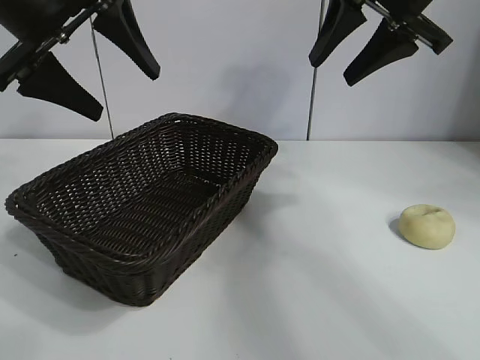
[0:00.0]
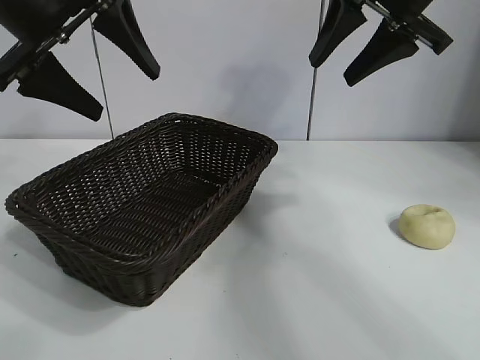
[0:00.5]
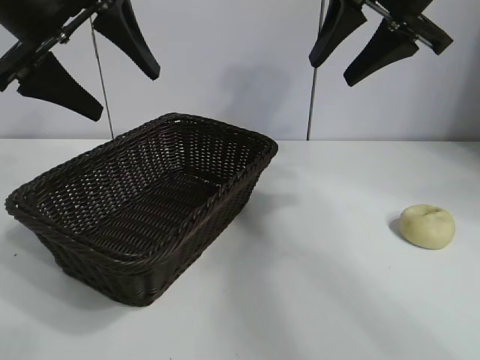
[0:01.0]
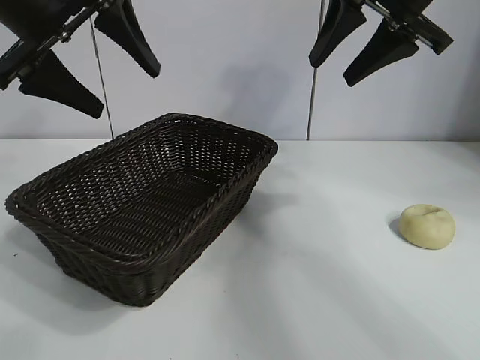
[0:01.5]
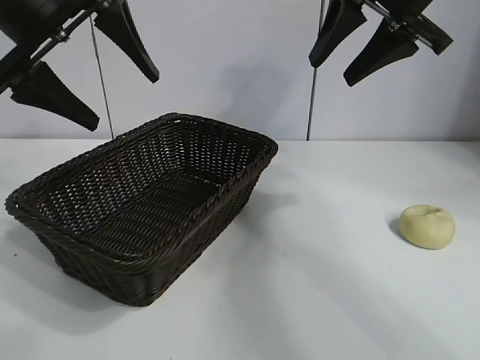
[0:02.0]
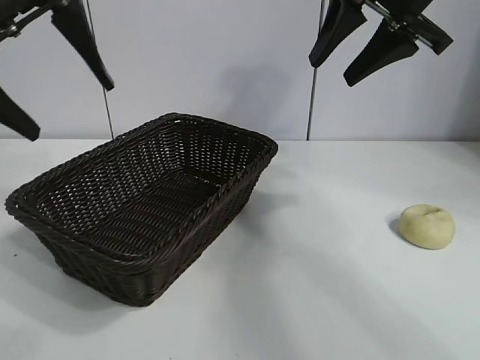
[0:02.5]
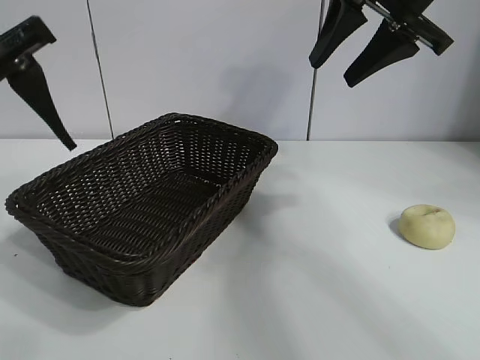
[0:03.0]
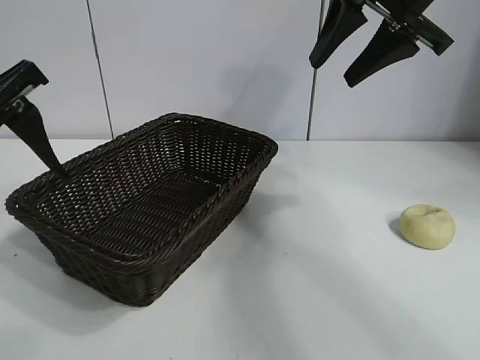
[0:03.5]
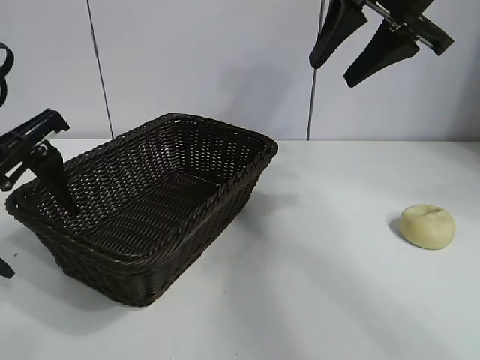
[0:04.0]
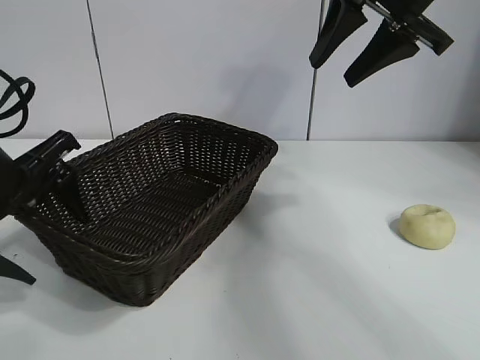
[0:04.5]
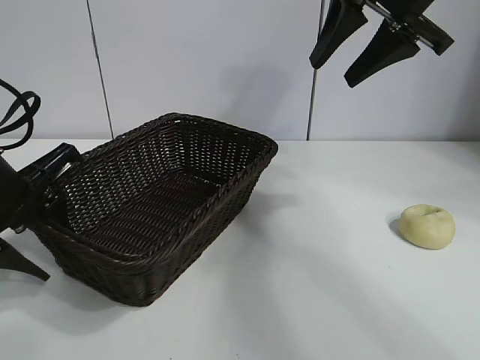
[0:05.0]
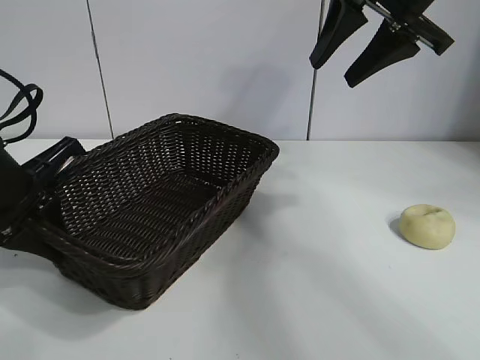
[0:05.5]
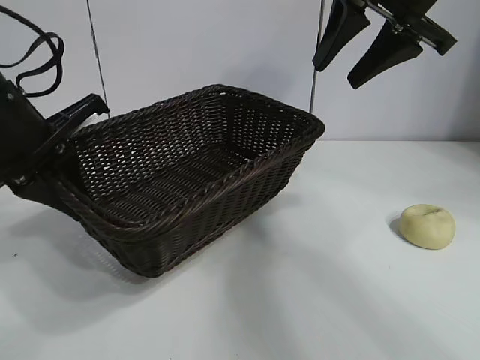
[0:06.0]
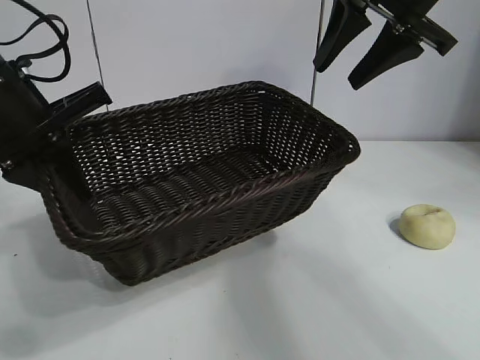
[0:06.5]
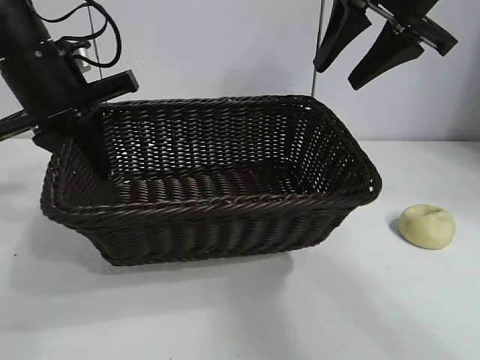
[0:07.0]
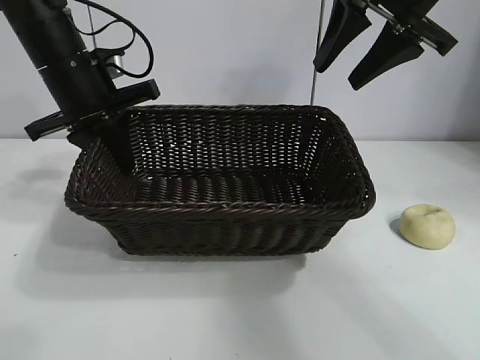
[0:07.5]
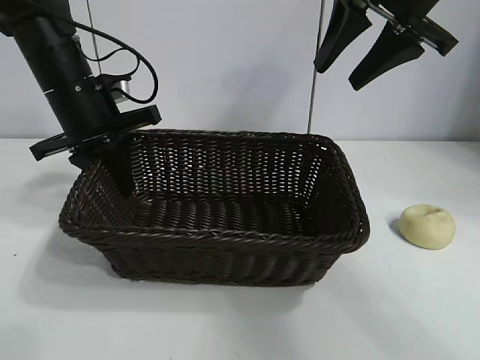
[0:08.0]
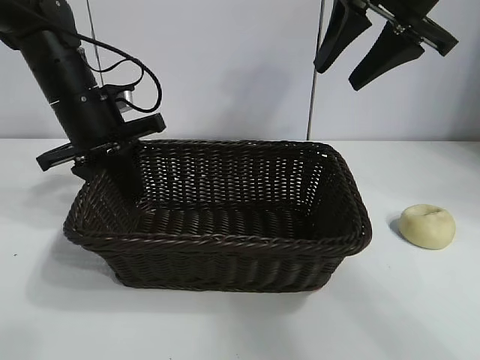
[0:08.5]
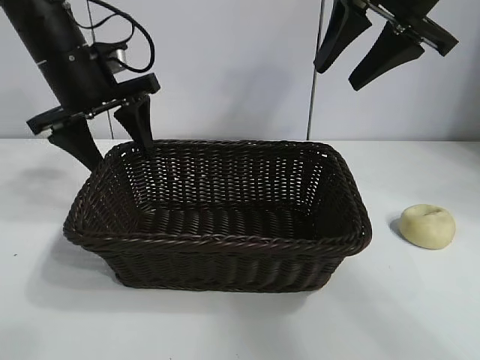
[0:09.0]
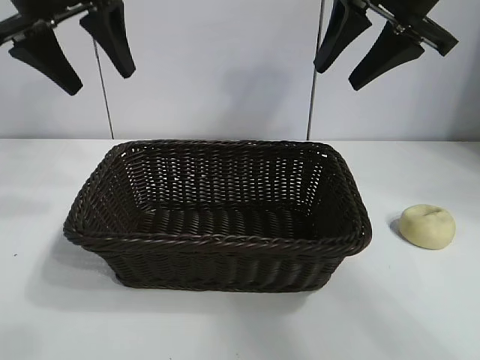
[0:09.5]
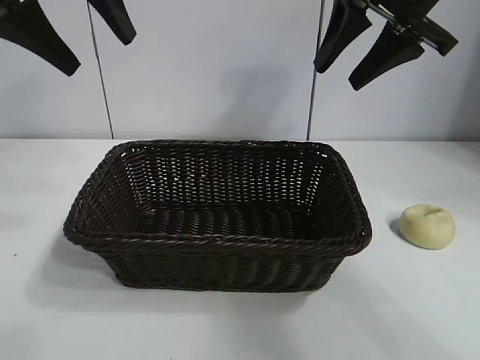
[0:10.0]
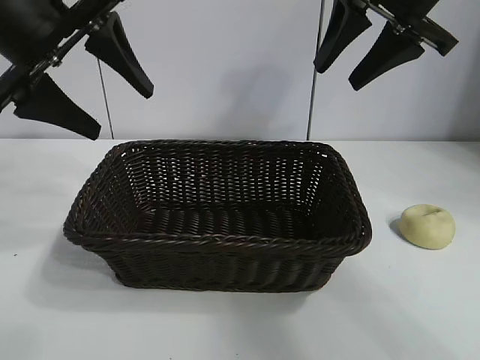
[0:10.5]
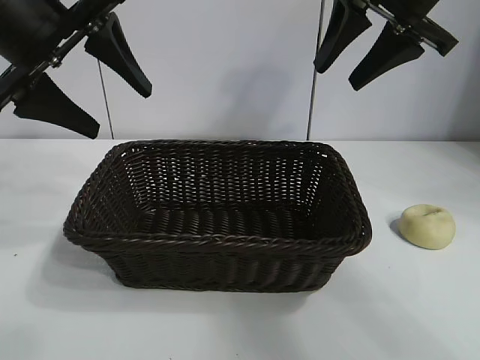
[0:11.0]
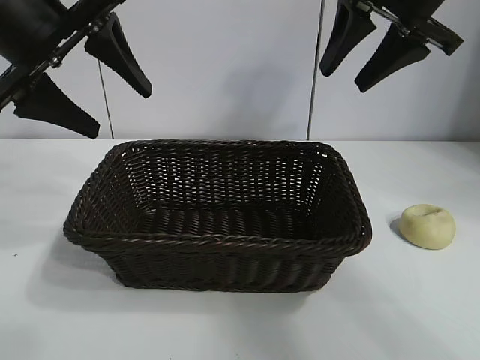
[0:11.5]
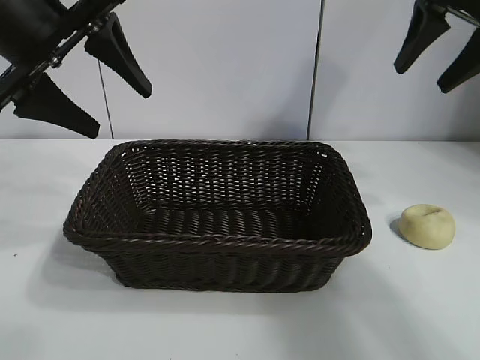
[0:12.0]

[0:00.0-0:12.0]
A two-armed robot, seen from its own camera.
Task of the whole recording: pick up the egg yolk pastry and put it into the basket.
Step, 0:01.5 to 0:05.0: Grasp the basket with left gripper.
Step, 0:05.5 to 0:08.5: Place the basket in the center of view with left gripper.

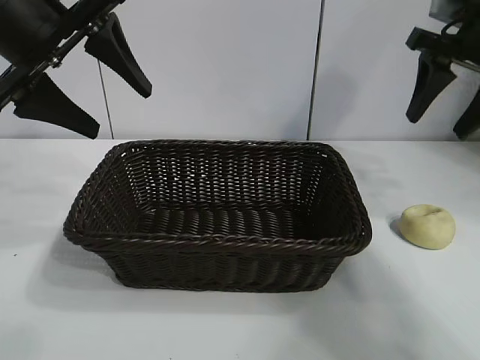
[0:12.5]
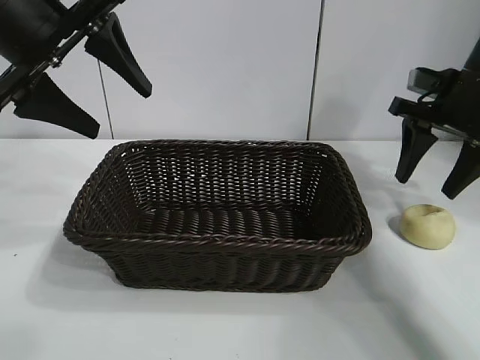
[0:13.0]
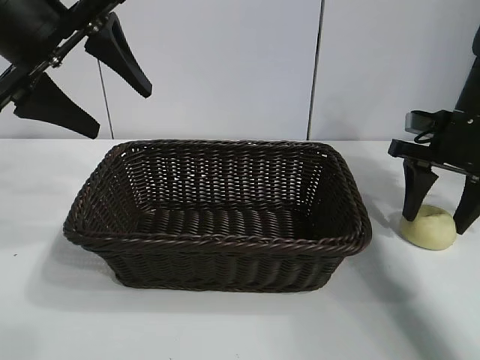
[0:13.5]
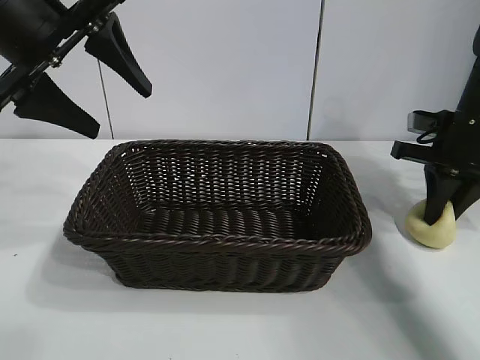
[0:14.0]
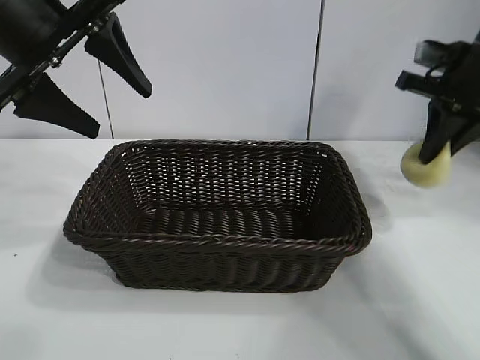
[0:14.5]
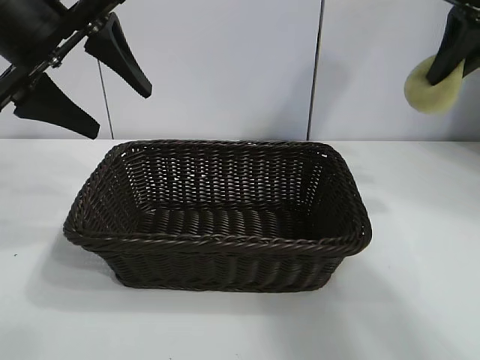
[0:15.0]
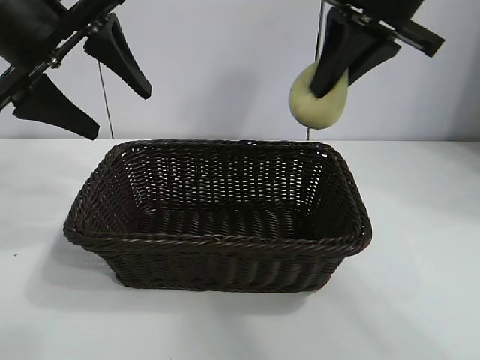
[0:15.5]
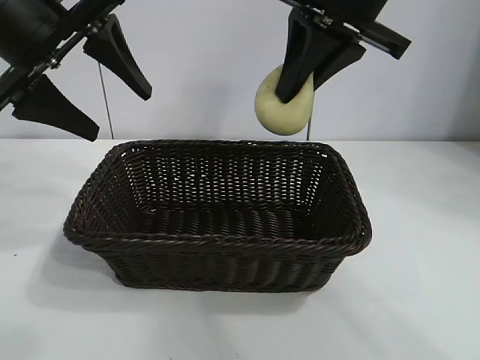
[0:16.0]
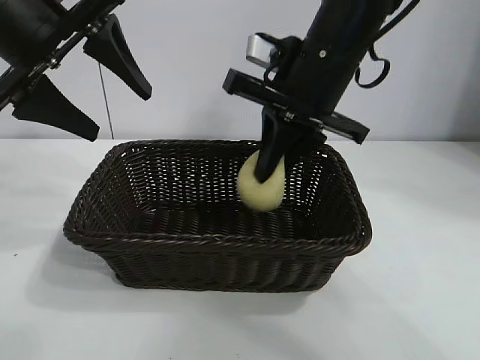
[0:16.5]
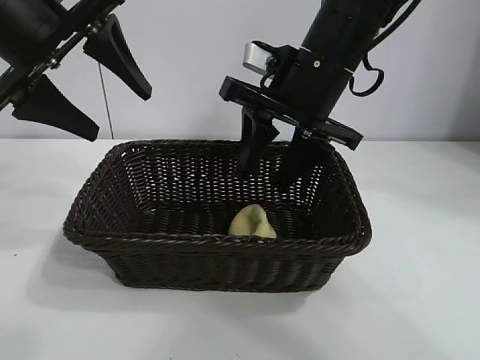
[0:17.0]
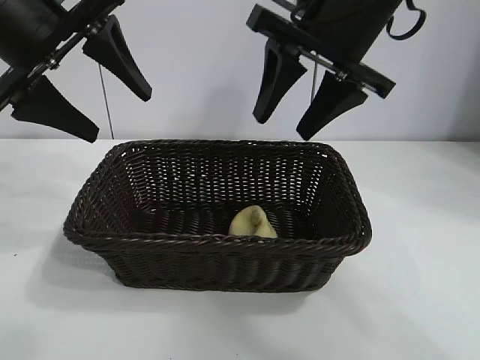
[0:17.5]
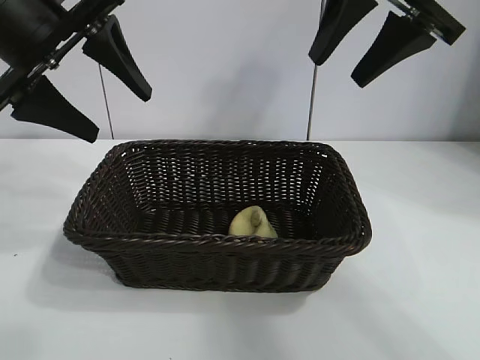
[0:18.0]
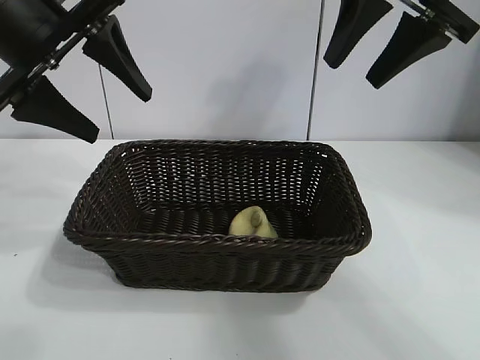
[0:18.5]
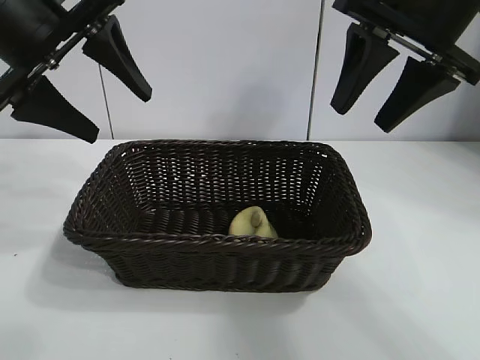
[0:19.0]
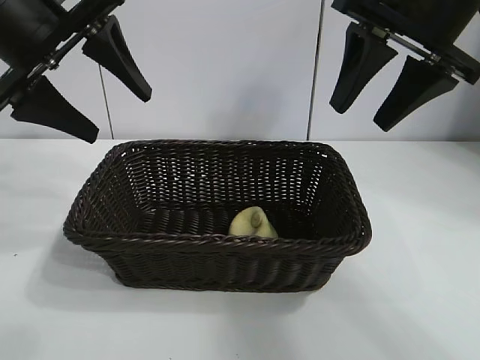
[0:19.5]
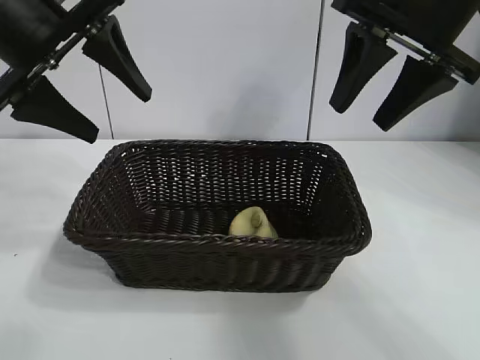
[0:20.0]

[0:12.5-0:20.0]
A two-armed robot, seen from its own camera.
Task of the whole recording: pick up the egg yolk pastry and put it into the basket.
Step, 0:14.5 to 0:16.5: Place the egg yolk pastry in the basket with right gripper.
